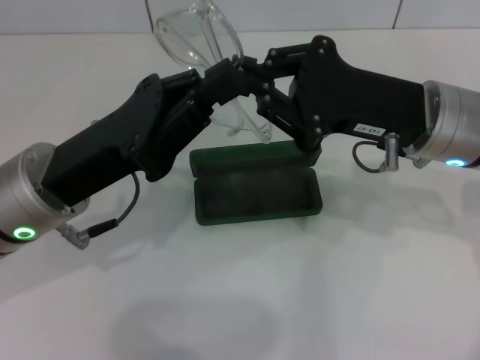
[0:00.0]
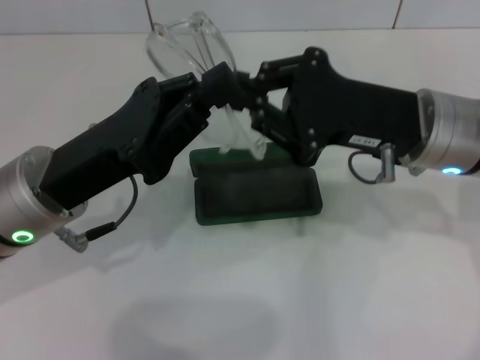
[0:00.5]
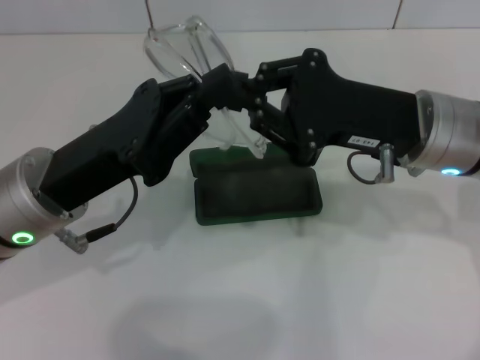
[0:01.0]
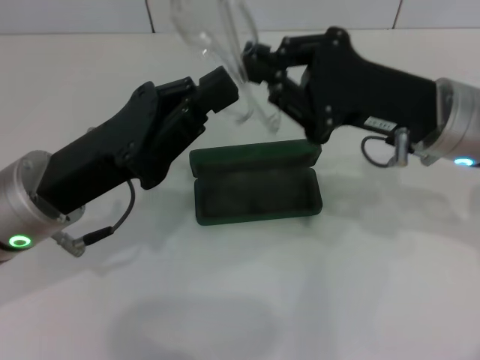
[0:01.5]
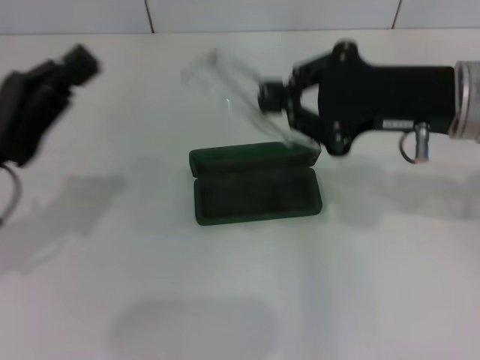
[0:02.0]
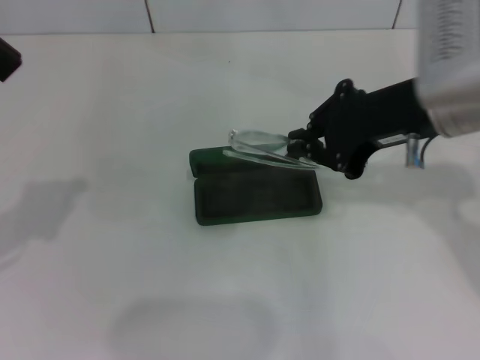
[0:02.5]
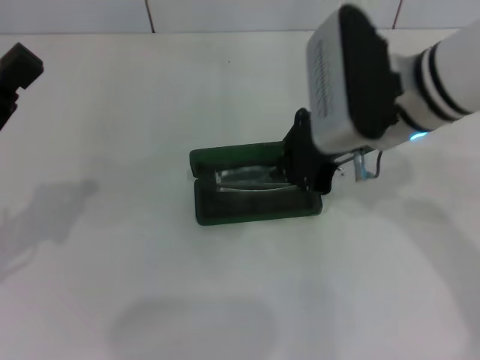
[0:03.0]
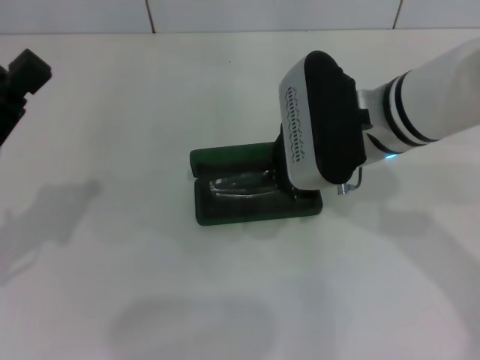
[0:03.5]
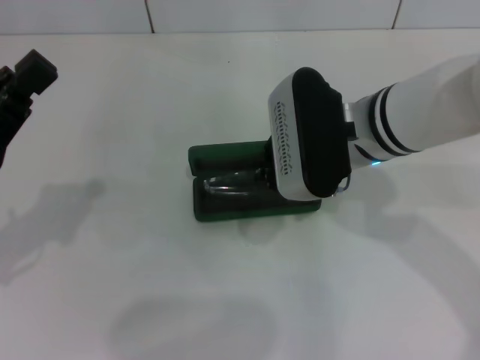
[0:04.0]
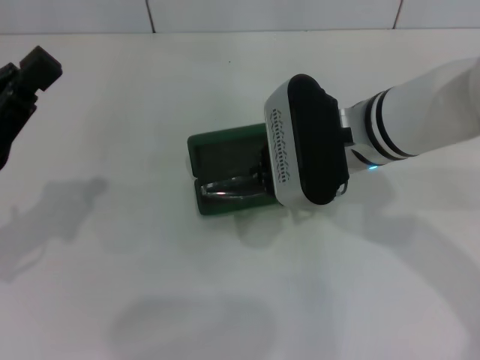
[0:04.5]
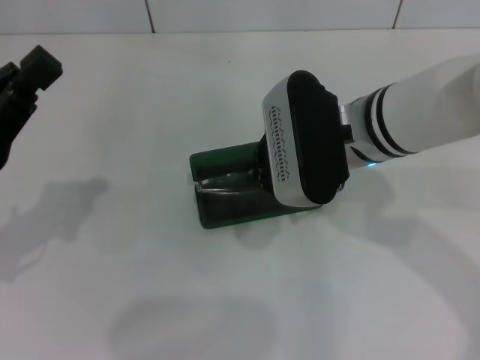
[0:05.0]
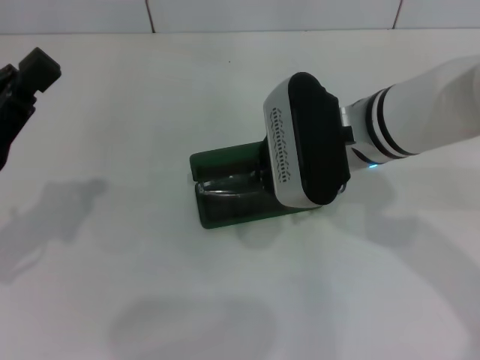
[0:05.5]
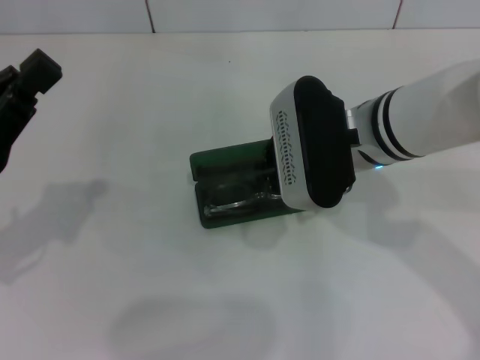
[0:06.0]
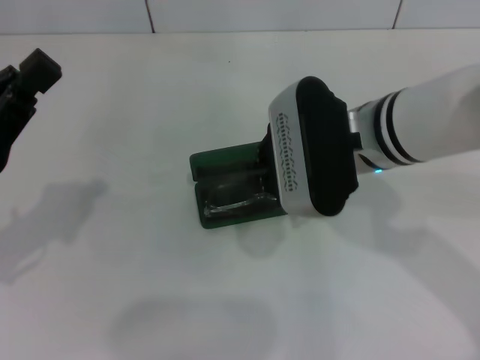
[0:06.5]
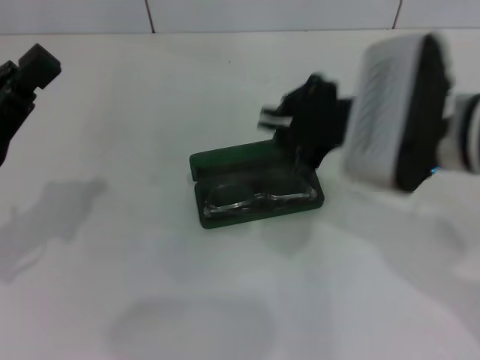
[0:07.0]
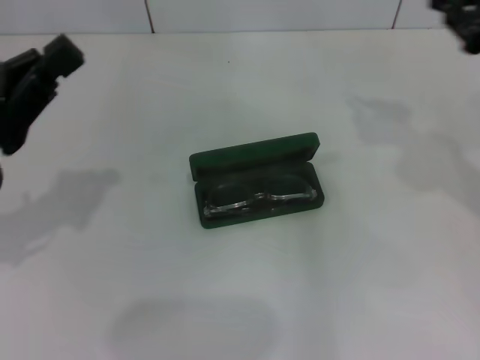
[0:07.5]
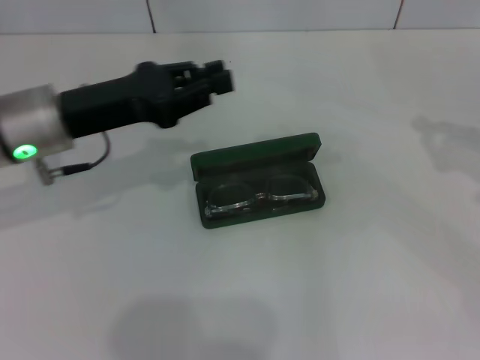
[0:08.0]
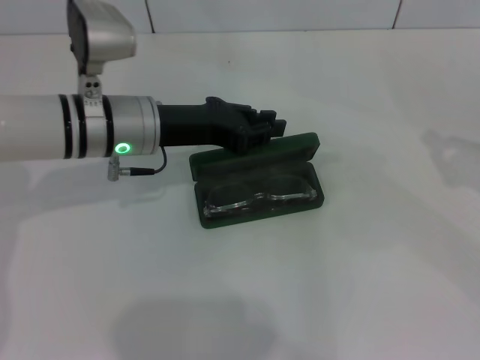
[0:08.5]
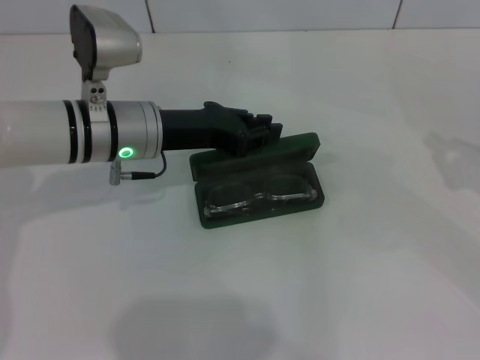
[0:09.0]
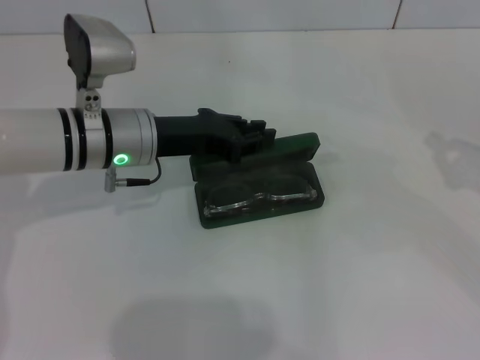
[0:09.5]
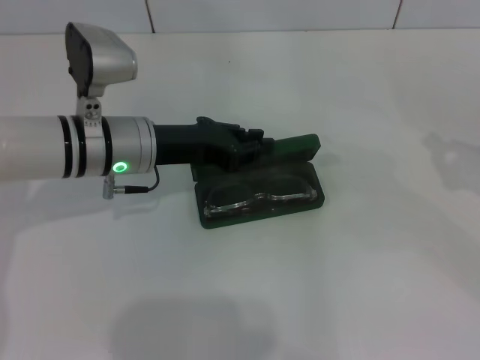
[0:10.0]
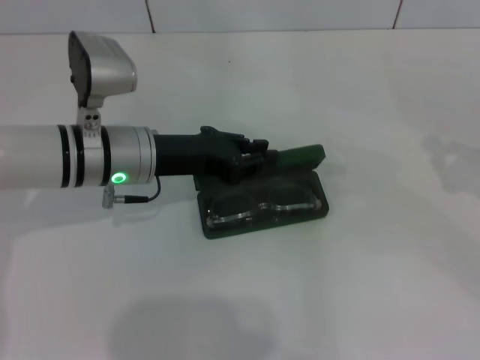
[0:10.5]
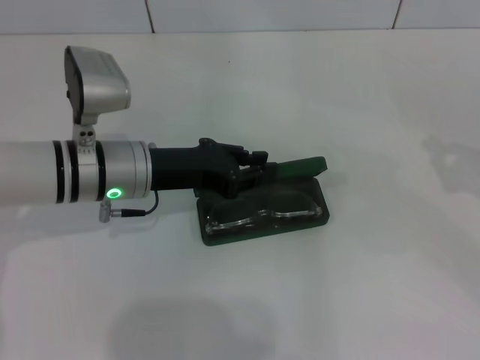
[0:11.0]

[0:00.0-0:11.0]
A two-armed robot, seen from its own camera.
Step, 0:00.0 to 0:06.5: Put the glasses into the case with your right hand.
0:00.0 to 0:02.0: The left gripper is displaced to the left by some 10 cm.
0:02.0 to 0:03.5: The right gripper goes about 10 cm to the left.
0:03.5 to 0:05.5: There are only small adjustments of the grippers.
0:05.5 to 0:07.5: The right gripper travels to the right by approximately 20 cm.
0:07.5 to 0:09.0: The right gripper is displaced to the right and downward by some 15 cm. Meanwhile the left gripper heads to the right and forward, covering about 20 cm.
0:09.0 to 0:11.0: There are only small adjustments of the grippers.

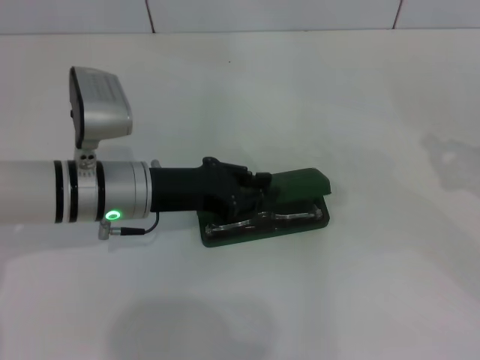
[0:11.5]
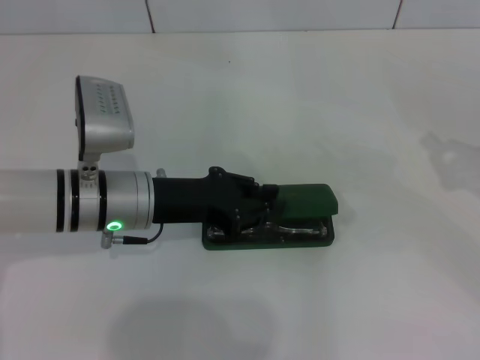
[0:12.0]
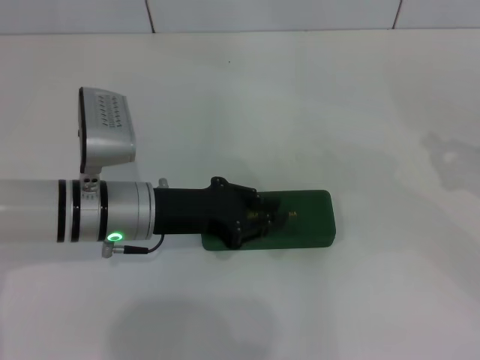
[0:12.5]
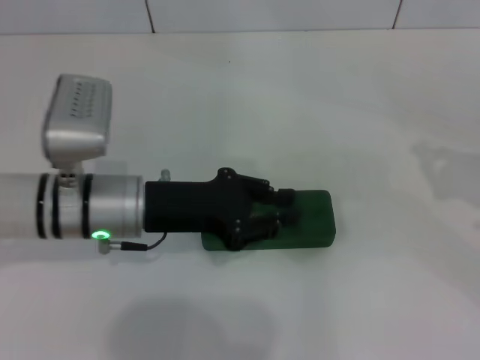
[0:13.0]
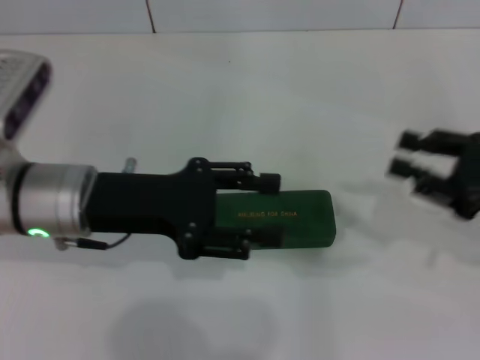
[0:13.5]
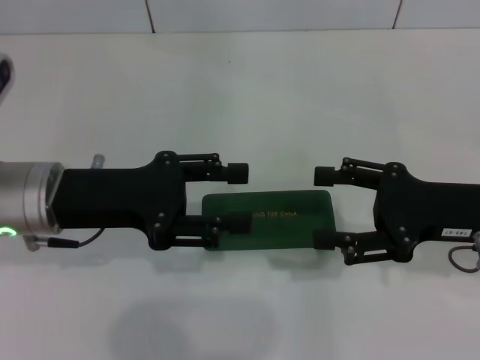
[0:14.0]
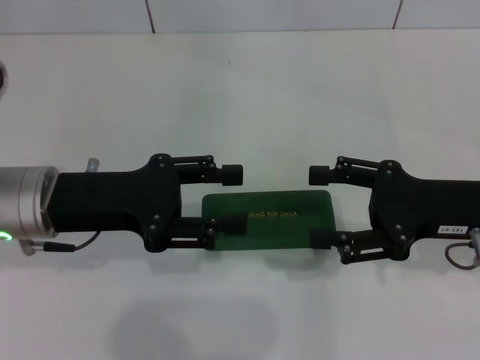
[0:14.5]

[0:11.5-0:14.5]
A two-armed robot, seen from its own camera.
0:11.5 to 0:13.0: The grippers stay close to where they were, moving slightly.
0:13.0 to 0:14.5: The left gripper heads to the left, covering approximately 5 cm, and opens up, while the right gripper is displaced to the left by some 15 cm, and opens its fingers.

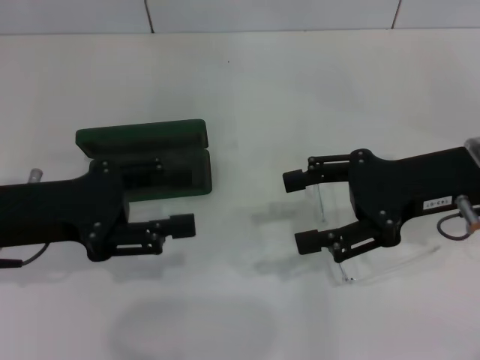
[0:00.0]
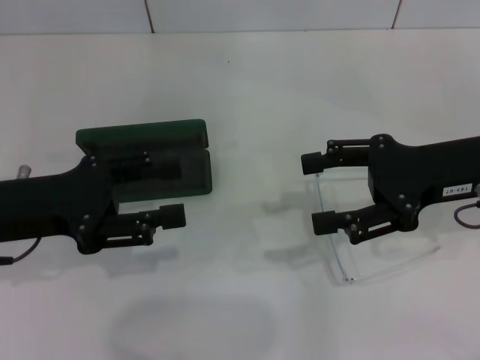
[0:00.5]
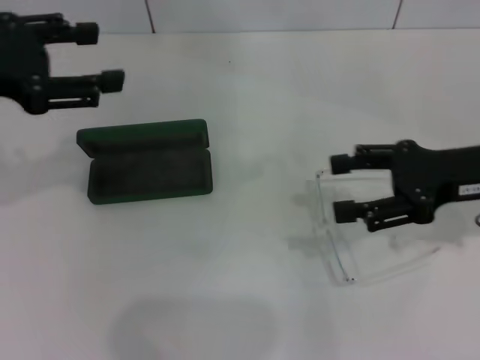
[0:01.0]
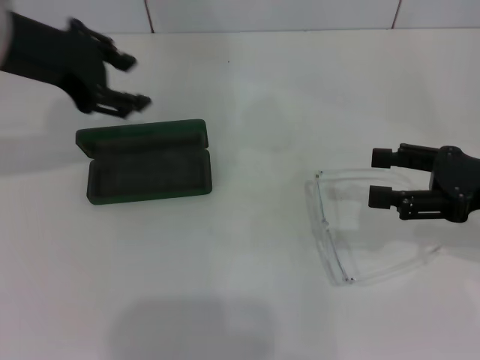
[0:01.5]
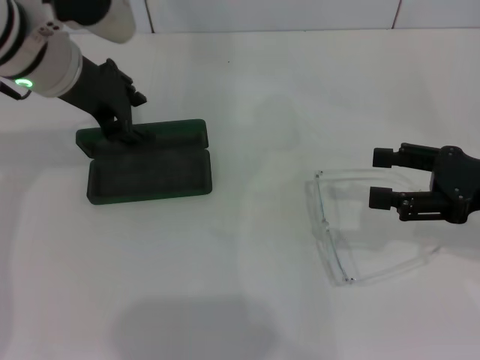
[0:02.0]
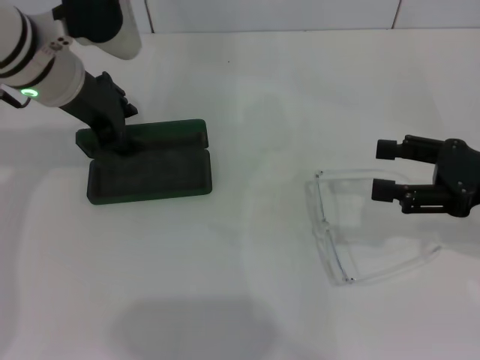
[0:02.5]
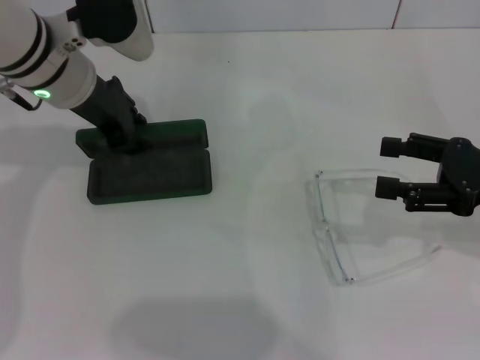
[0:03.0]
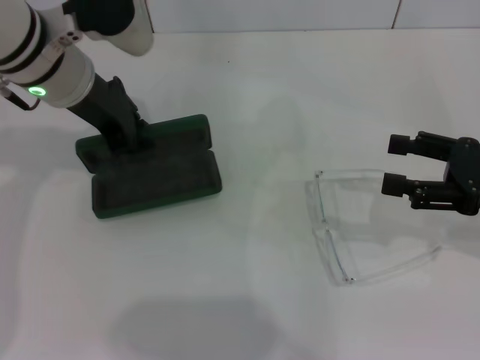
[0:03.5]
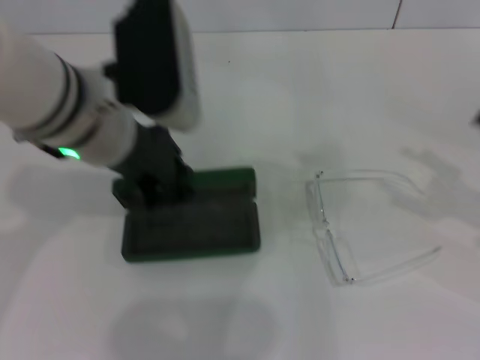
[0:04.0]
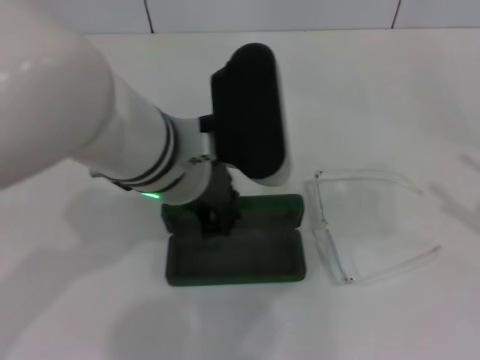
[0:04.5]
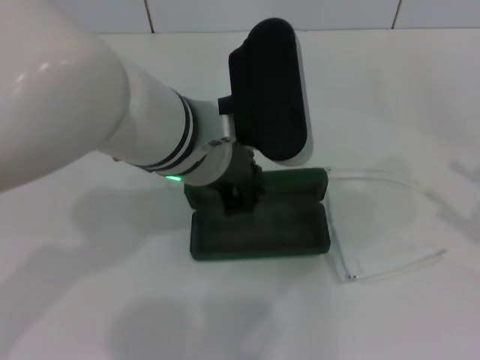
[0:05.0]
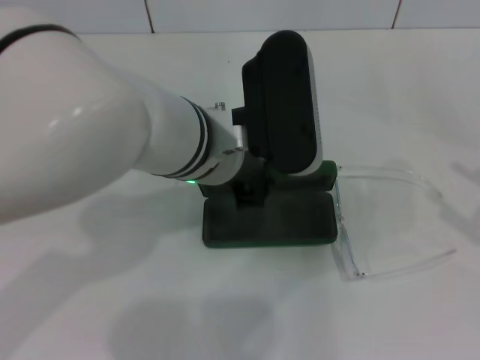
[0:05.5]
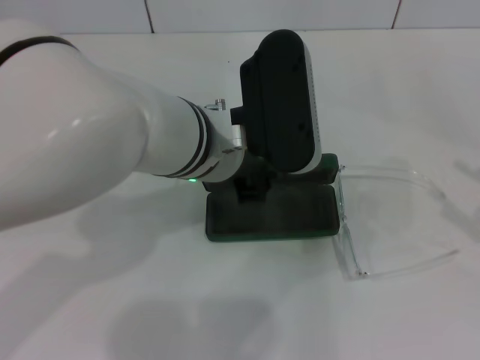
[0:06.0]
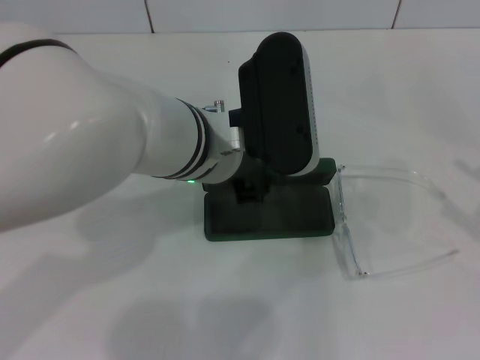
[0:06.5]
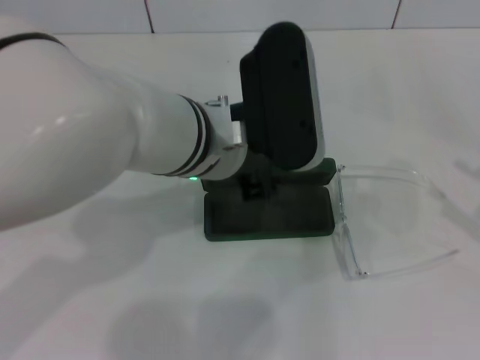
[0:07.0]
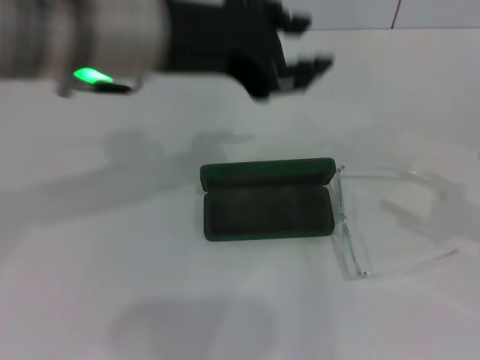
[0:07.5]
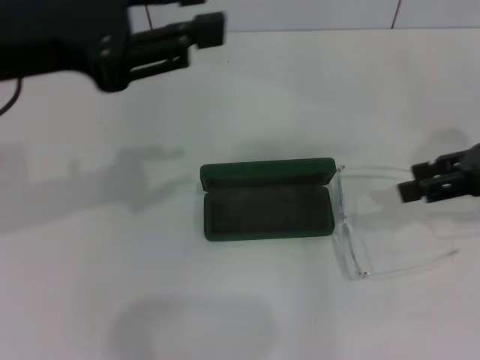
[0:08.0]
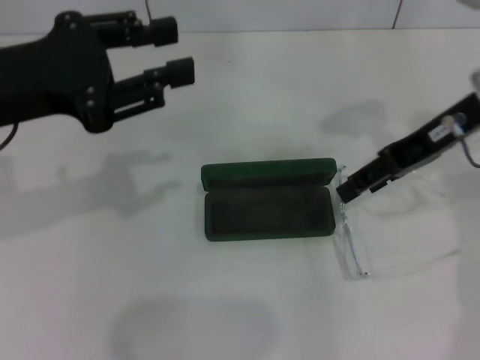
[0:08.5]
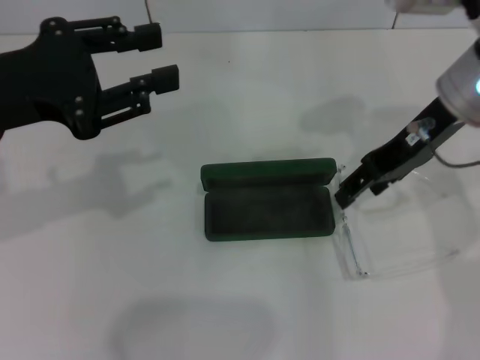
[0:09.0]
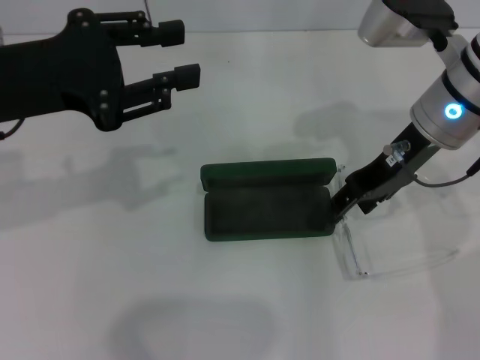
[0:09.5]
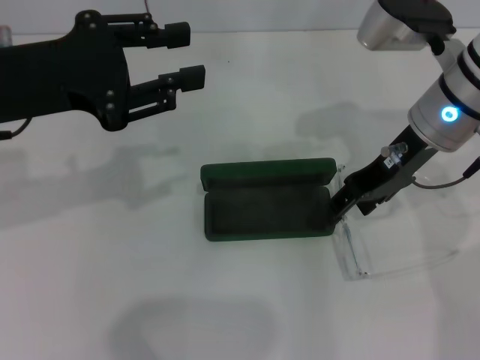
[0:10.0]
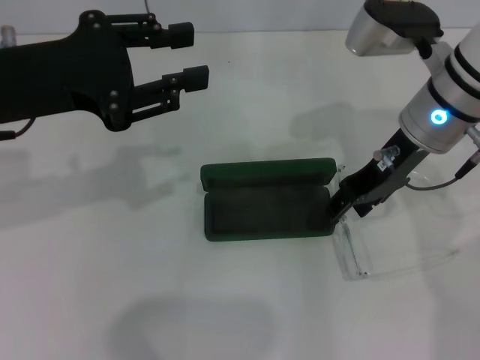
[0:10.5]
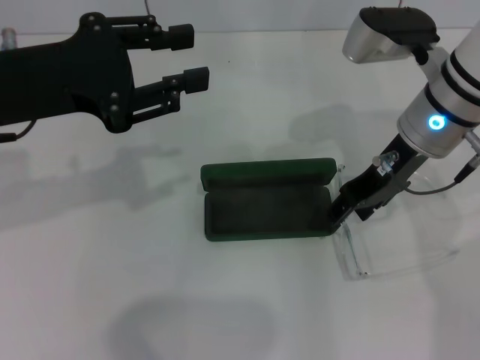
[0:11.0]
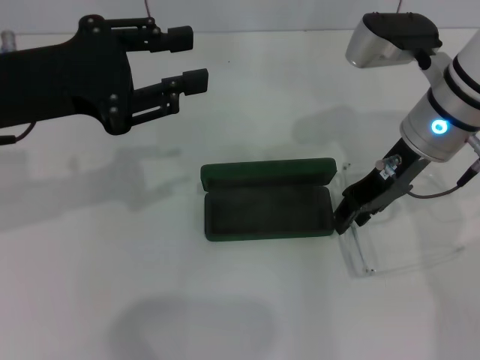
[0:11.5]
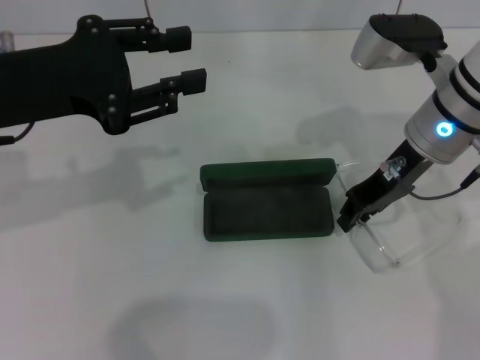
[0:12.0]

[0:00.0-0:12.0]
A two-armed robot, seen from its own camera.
Step, 0:00.0 to 0:03.0: Grab the glasses case with your left hand.
Step, 0:03.5 to 0:06.5: Place the glasses case in the center of the table with your left hand.
0:00.0 to 0:02.0: The right gripper moves to the right, approximately 10 cm. The left gripper goes roughly 15 cm forward, upward and to the right.
0:02.0 to 0:04.0: The right gripper shifts some 5 cm to the right; the left gripper is displaced backward by approximately 5 cm, and closes.
0:04.0 to 0:06.0: The right gripper heads backward, covering some 5 cm, while the left gripper is displaced to the right by about 10 cm.
0:06.0 to 0:08.0: The left gripper heads to the left and upward, covering roughly 20 cm, and opens its fingers, while the right gripper goes approximately 15 cm forward, to the left and upward.
0:08.0 to 0:10.0: The right gripper moves to the left and forward, some 15 cm; the left gripper shifts some 5 cm downward.
0:10.0 to 0:12.0: The right gripper closes.
